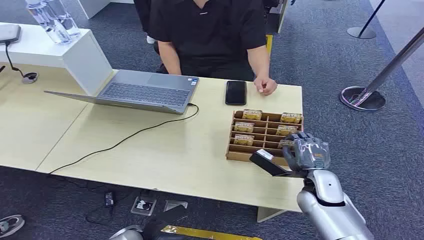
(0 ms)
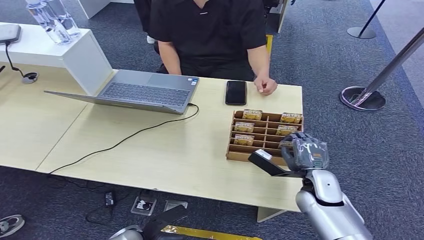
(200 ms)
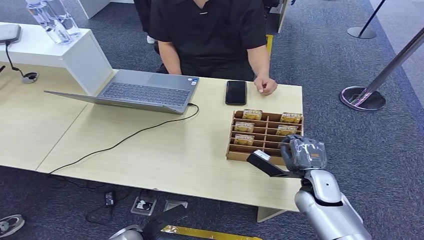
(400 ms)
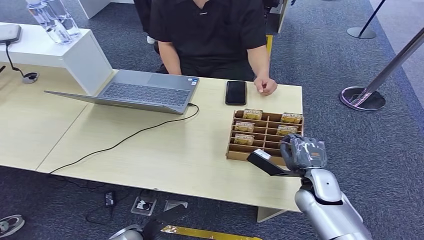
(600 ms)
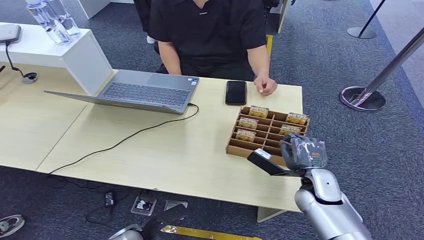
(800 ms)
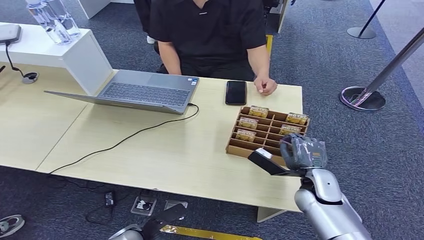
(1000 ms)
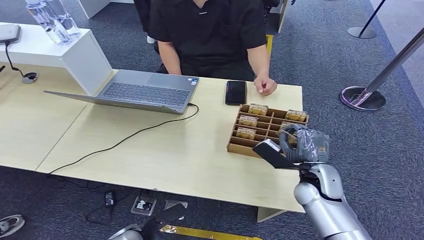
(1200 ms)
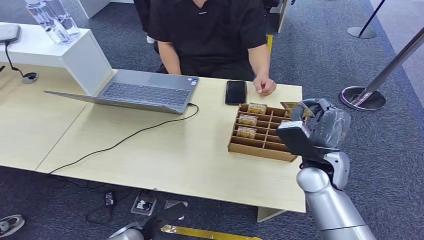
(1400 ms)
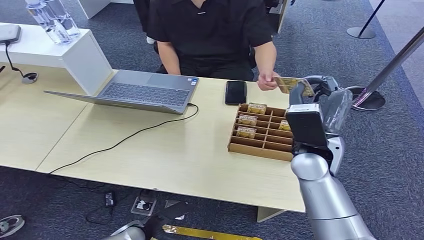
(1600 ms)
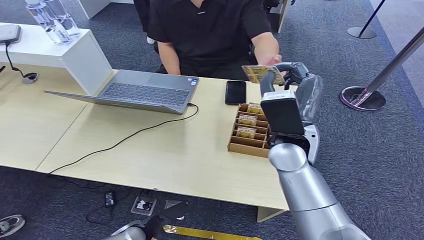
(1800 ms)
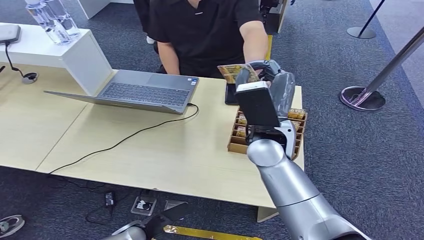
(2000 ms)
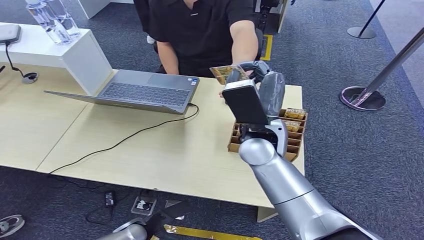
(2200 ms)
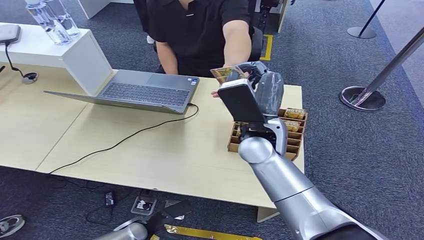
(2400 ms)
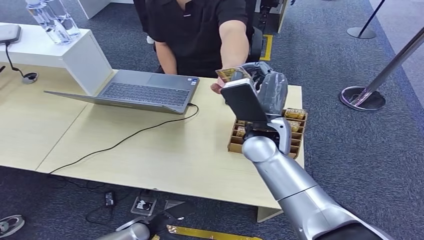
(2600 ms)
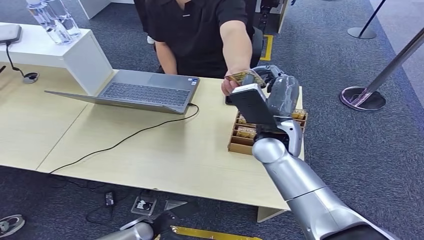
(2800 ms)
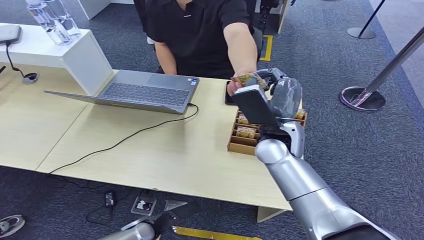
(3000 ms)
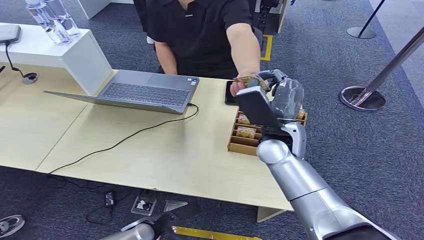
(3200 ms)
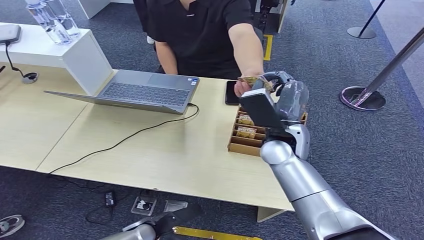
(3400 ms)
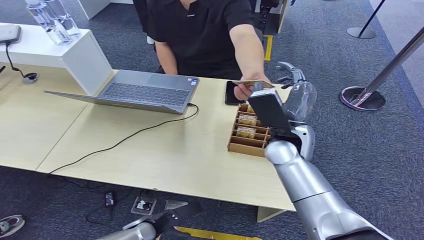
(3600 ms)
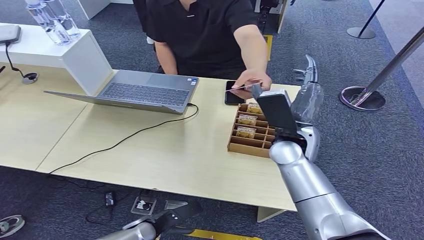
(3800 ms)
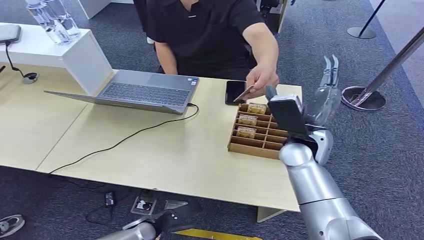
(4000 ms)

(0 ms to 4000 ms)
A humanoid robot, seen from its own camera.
Step, 0 ms - 1600 ms: Pick up the room card from the card holder.
Step, 1800 ms - 3800 ms: Hand the room card to the target.
1400 ms - 2600 ms: The right hand heads to the left and upward, covering some 15 cm.
2600 ms - 4000 ms: The right hand is displaced to the right by some 5 cm.
